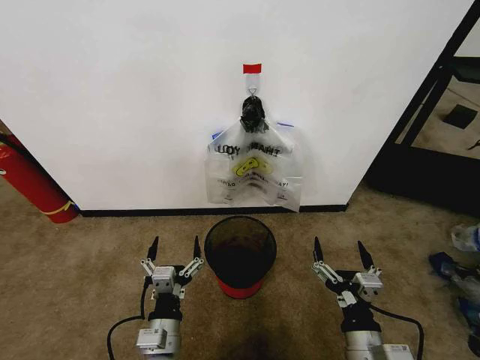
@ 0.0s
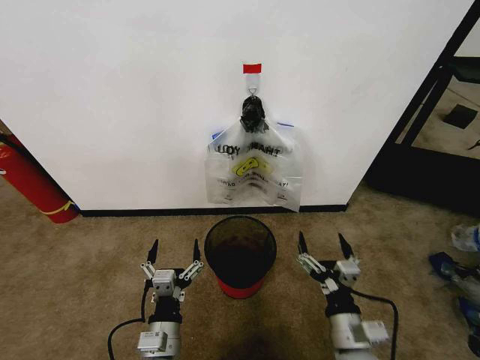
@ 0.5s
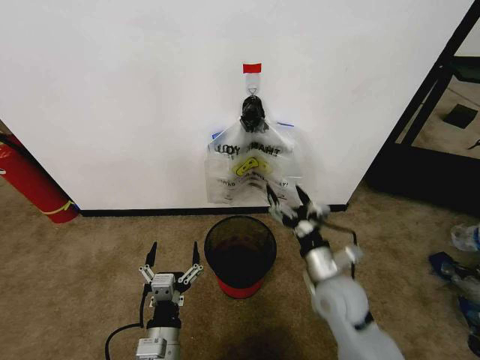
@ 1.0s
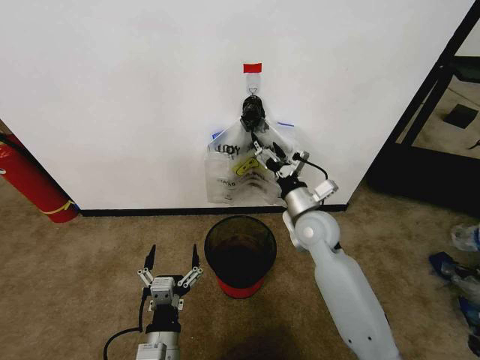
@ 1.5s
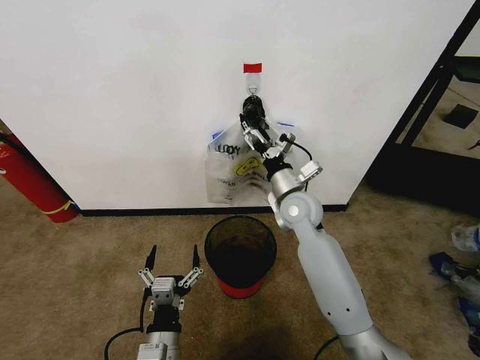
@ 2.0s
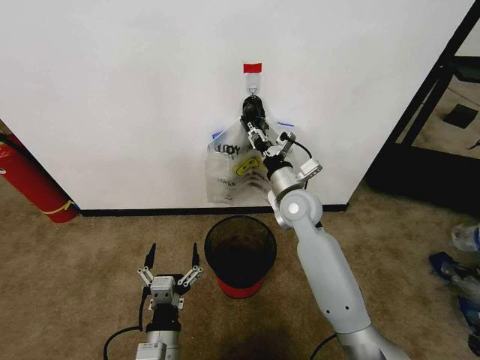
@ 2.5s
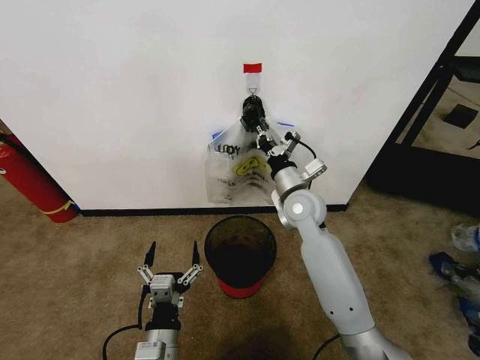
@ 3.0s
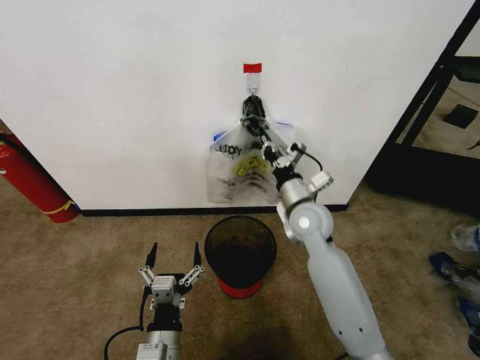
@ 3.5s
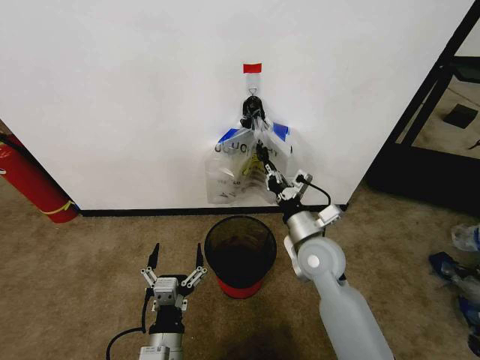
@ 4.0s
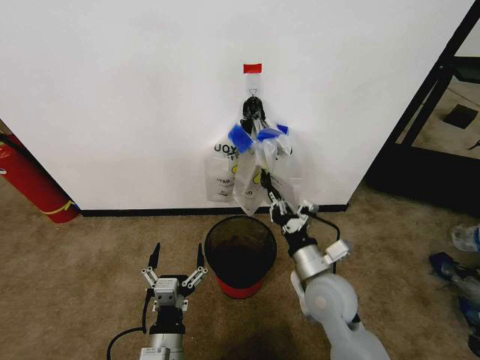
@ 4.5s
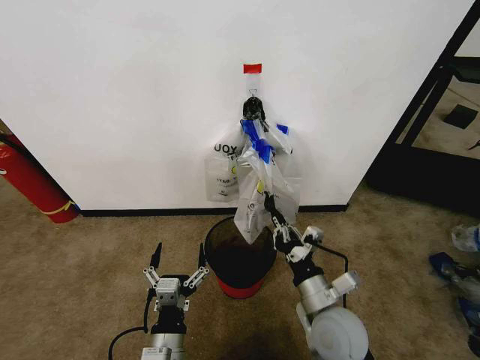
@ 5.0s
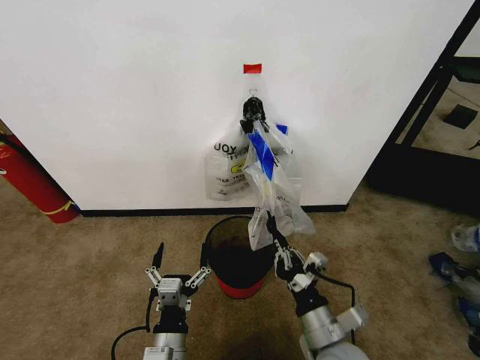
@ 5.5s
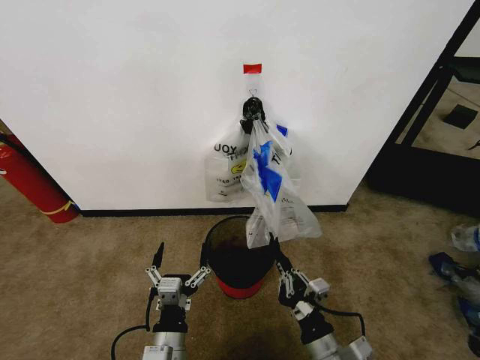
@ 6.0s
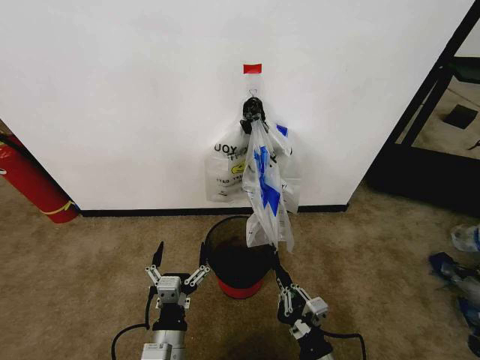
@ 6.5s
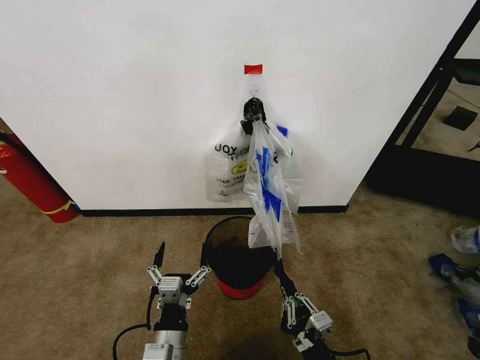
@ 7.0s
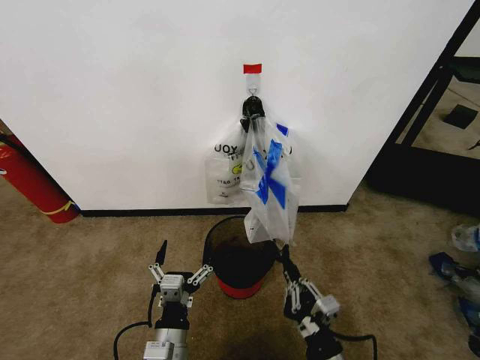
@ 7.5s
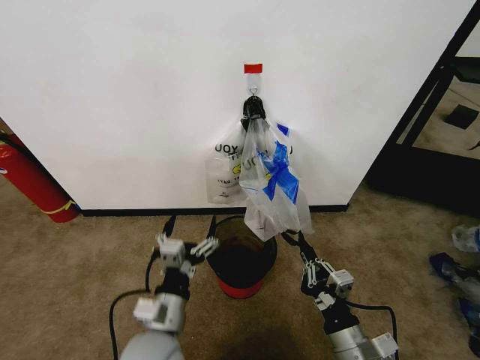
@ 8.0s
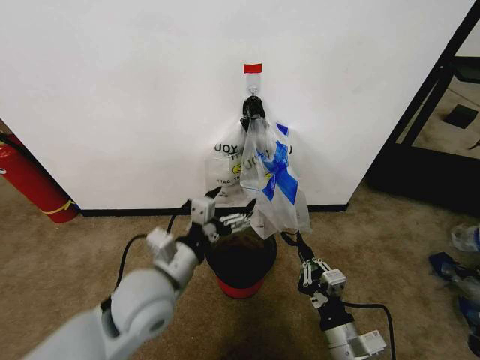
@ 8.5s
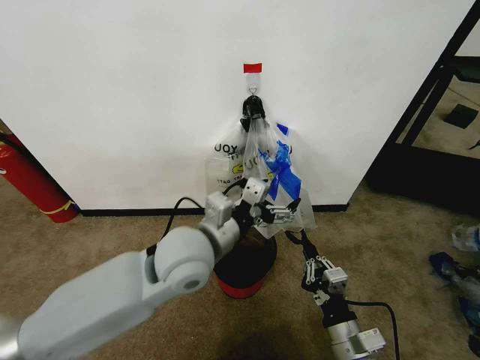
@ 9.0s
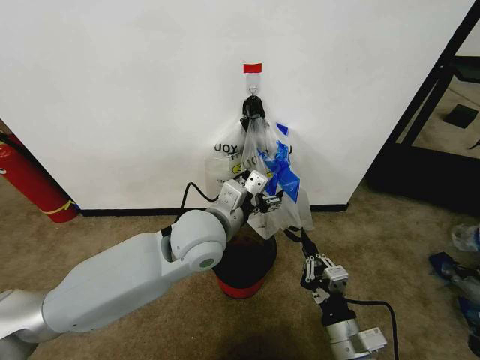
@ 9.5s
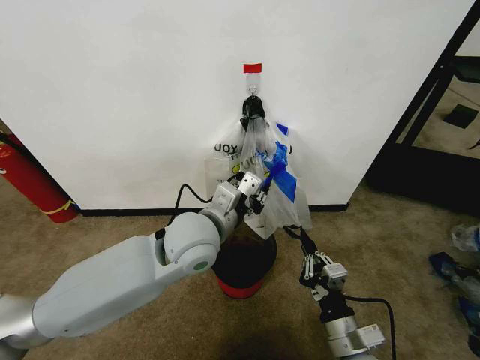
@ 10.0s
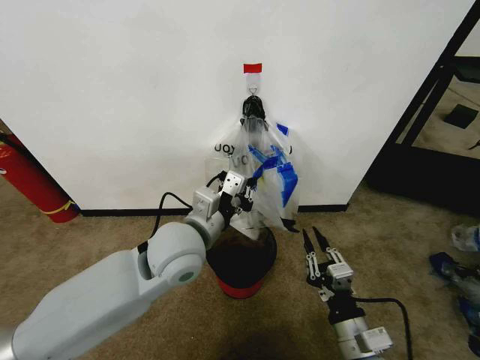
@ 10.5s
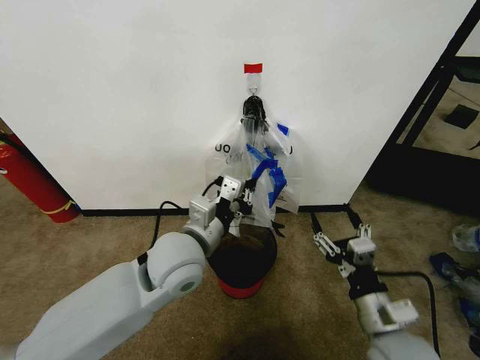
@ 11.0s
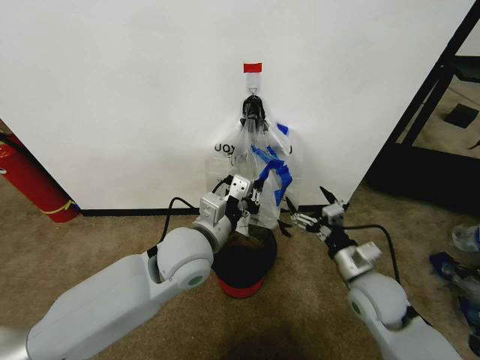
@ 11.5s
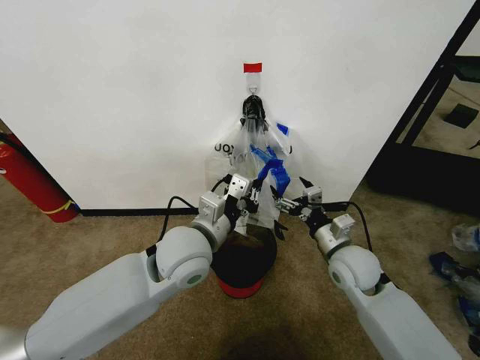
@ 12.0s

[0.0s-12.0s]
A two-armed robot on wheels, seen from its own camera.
Task of the whole recording: Pick up the garbage bag from the wall and place it over the trash bin.
2.0s to 4.0s: The right gripper moves backward, about 10 cm, and closes up.
4.0s to 6.0s: The right gripper is displaced backward and downward by approximately 25 cm.
6.0s to 8.0s: The left gripper is displaced upward by some 5 cm.
8.0s to 10.0s: The left gripper shifts about 20 cm forward, upward and to the right, and closes up.
10.0s to 12.0s: The right gripper goes about 20 cm forward, and opens up.

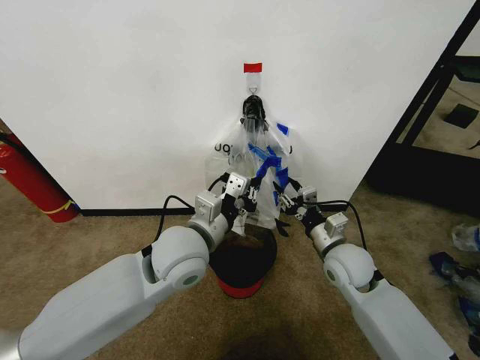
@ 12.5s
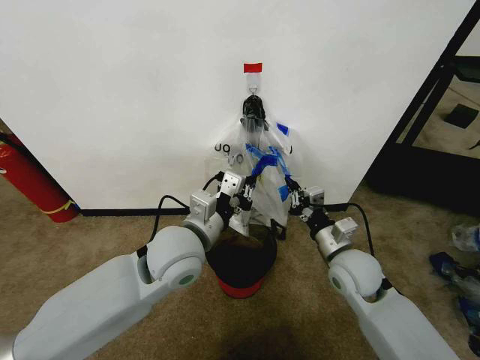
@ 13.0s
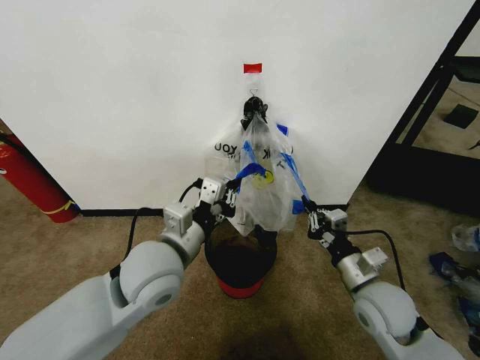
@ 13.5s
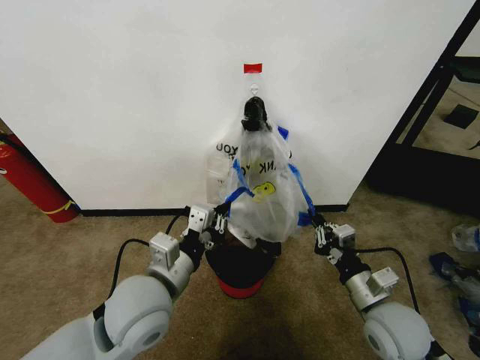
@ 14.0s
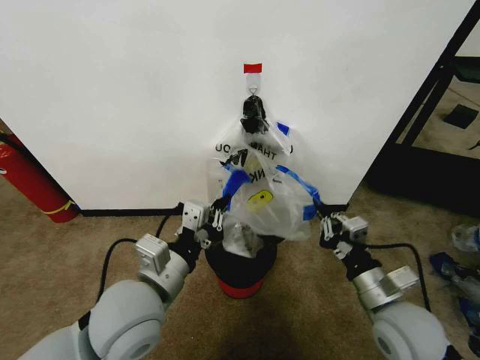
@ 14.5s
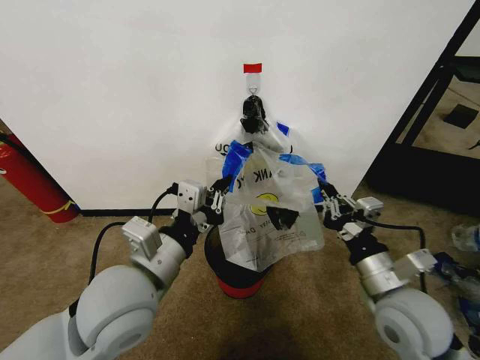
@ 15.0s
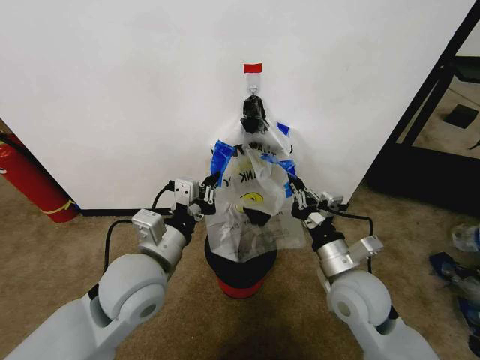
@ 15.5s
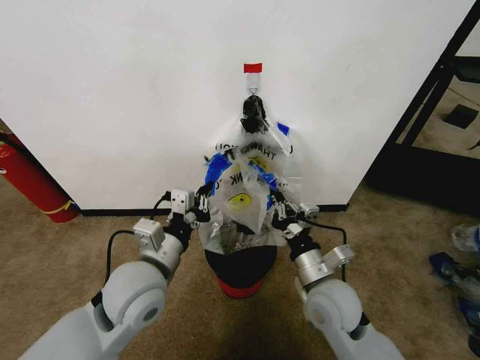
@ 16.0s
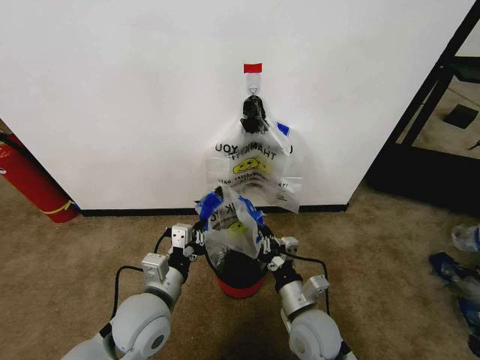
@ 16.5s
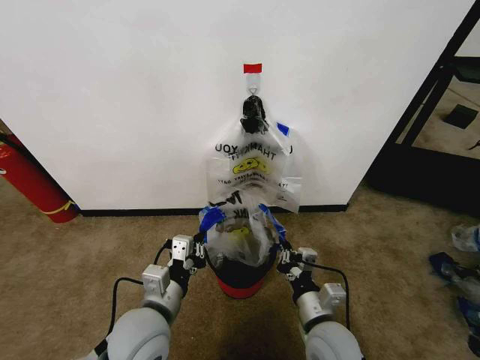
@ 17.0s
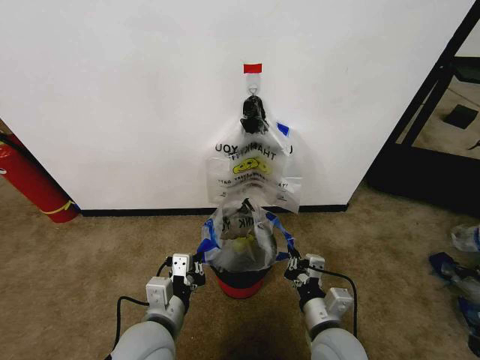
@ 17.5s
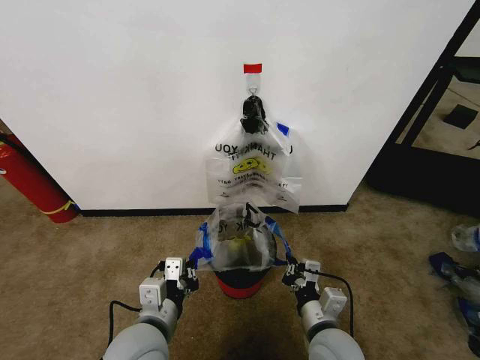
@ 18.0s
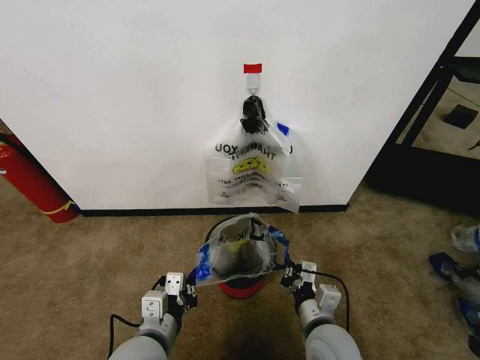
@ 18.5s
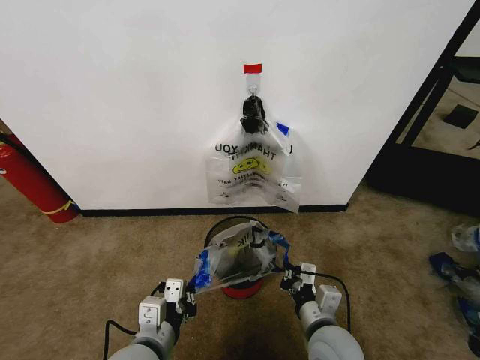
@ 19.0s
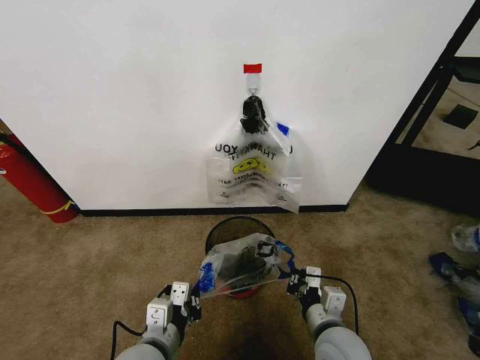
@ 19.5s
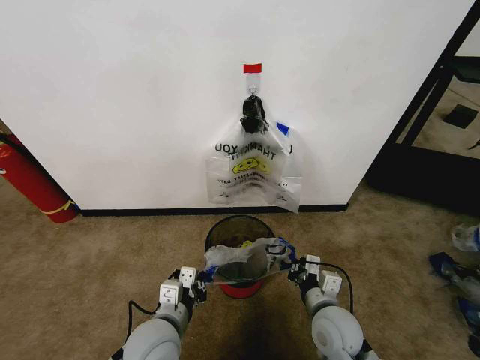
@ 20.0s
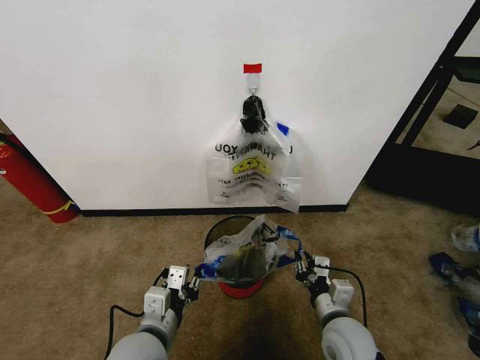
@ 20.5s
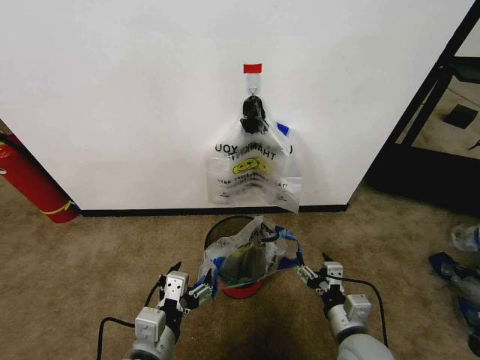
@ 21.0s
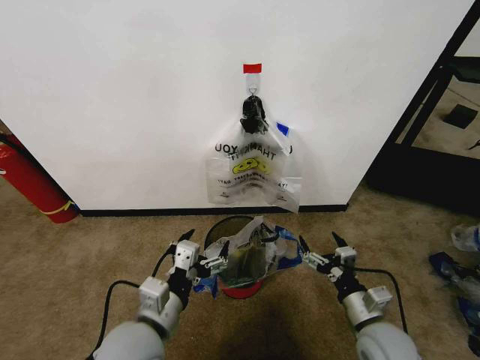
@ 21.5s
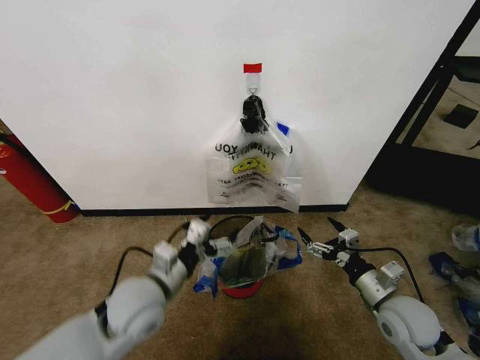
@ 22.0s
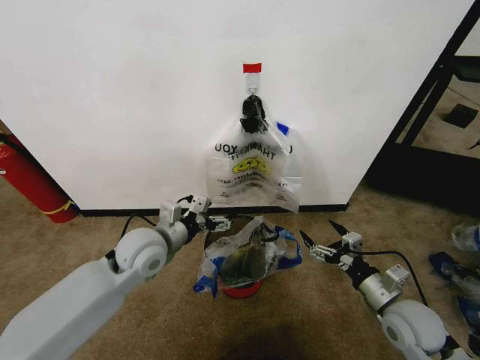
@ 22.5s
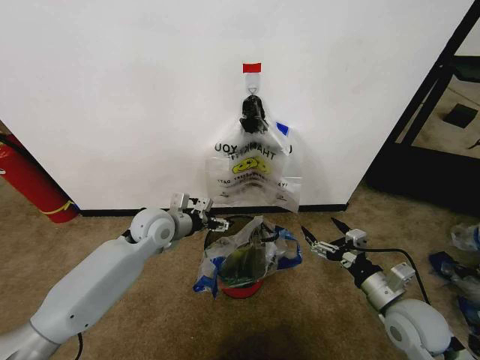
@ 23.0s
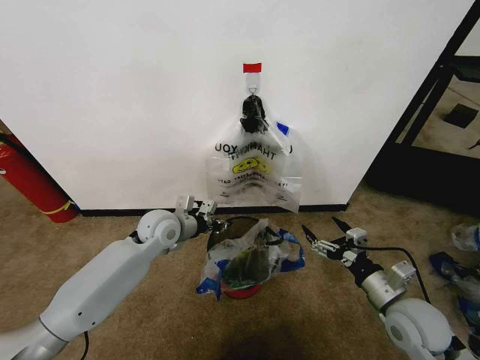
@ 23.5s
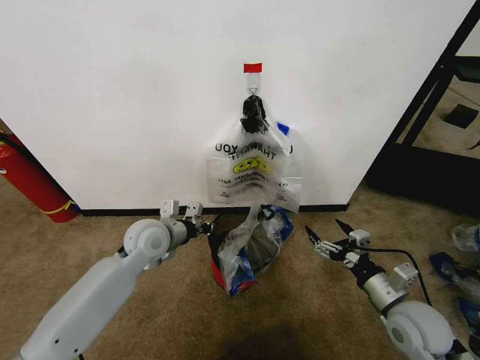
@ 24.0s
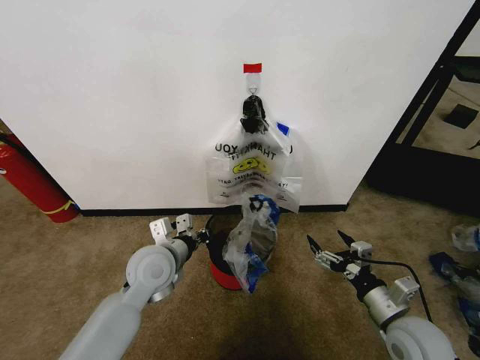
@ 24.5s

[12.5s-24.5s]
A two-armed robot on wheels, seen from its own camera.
Task of the whole recording: Pick up the garbage bag from the wall and place it over the trash bin.
12.5s to 14.5s: The left gripper is displaced backward and to the left by some 10 cm. The right gripper heads backward, covering roughly 15 cm, and closes.
14.5s to 16.5s: The left gripper moves downward, approximately 10 cm, while the right gripper goes roughly 15 cm to the left and downward.
16.5s to 18.5s: The left gripper moves backward, approximately 5 cm.
18.5s to 20.5s: The grippers stay close to where they were, moving slightly.
20.5s to 22.5s: The left gripper goes about 20 cm forward, and opens; the right gripper travels to the right by roughly 10 cm, and opens up.
22.5s to 24.5s: The left gripper reaches roughly 10 cm forward, then returns, and closes up.

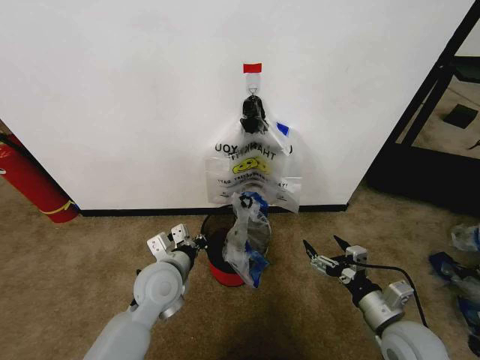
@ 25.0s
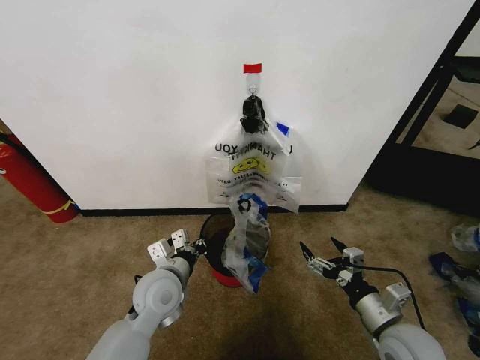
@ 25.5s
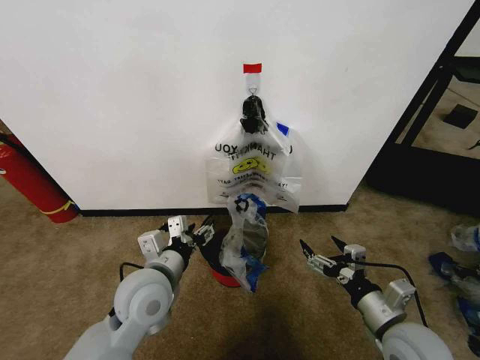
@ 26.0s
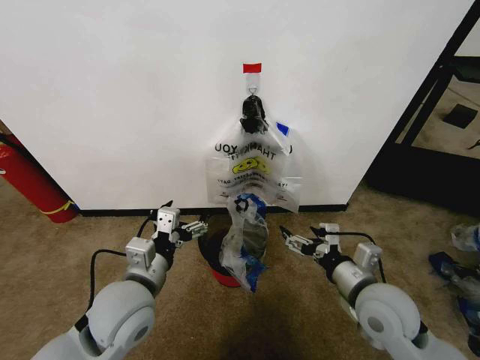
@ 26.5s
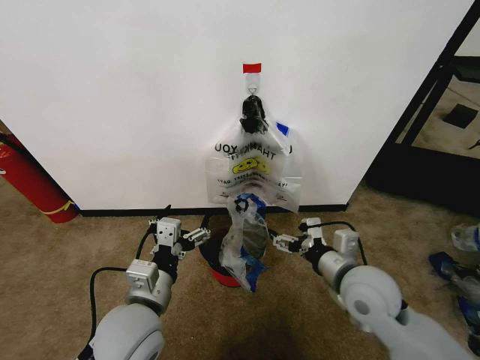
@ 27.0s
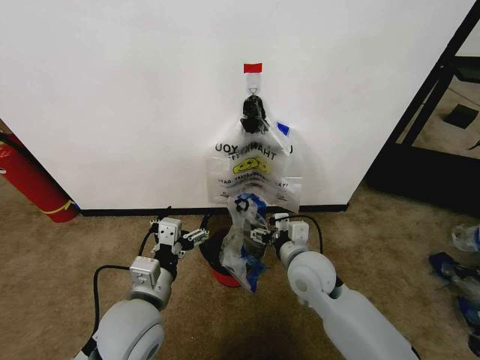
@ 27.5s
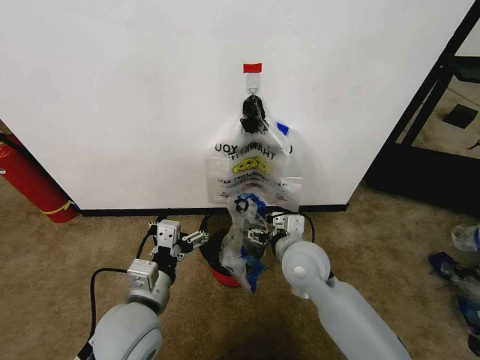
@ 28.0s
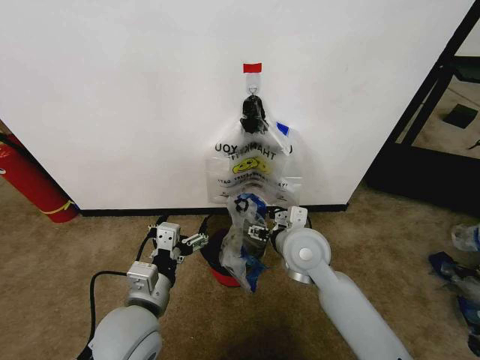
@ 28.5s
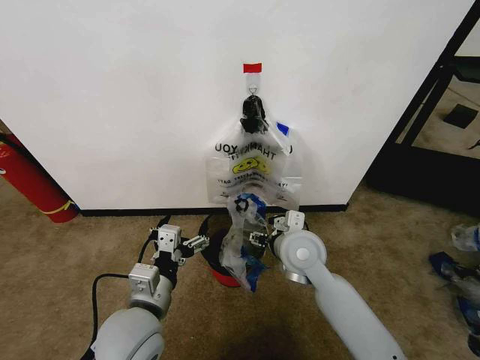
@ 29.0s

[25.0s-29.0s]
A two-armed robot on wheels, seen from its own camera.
Task of the whole recording: Pick up the garbage bag from the wall and place it over the trash bin.
25.0s to 27.0s: The left gripper shifts about 10 cm backward and upward, and opens its fingers; the right gripper is displaced upward, to the left and forward by about 15 cm.
27.0s to 29.0s: The right gripper goes some 15 cm to the left and forward.
